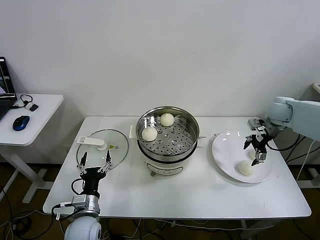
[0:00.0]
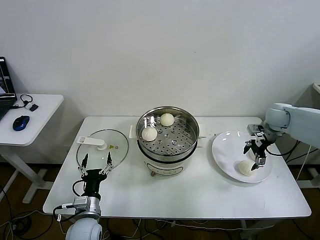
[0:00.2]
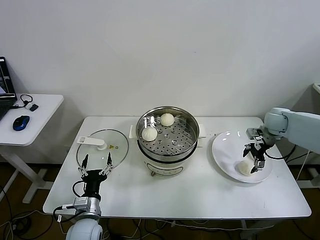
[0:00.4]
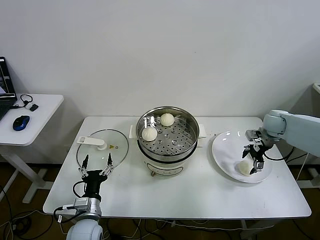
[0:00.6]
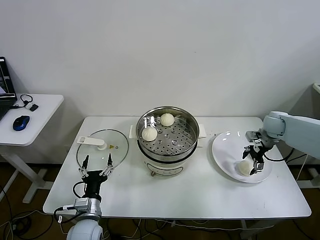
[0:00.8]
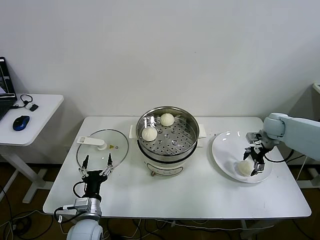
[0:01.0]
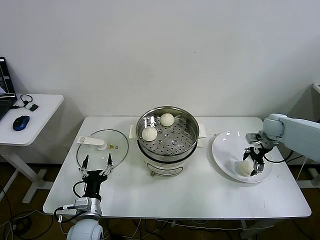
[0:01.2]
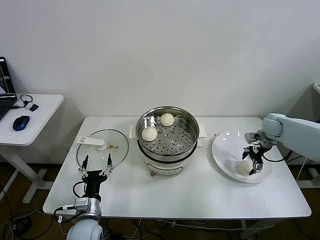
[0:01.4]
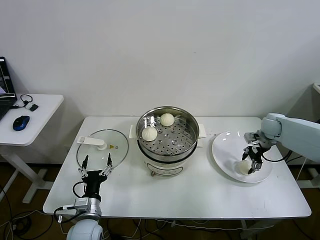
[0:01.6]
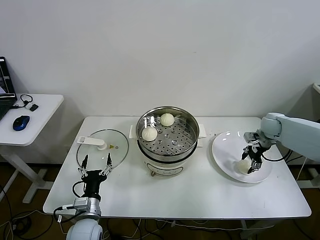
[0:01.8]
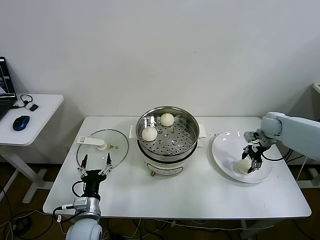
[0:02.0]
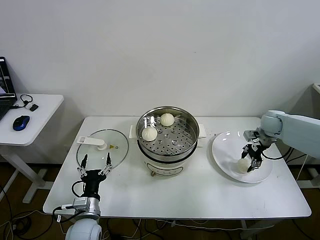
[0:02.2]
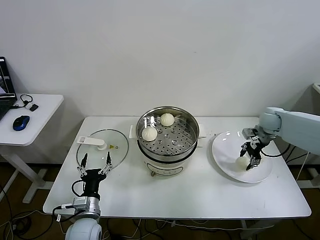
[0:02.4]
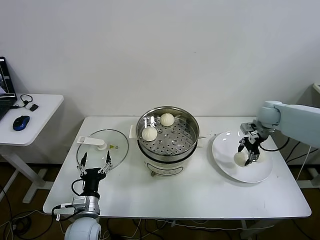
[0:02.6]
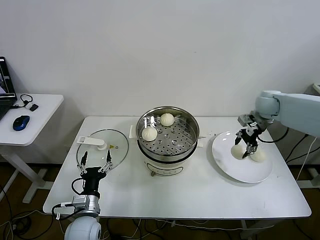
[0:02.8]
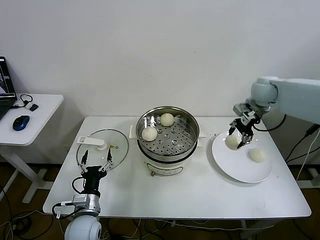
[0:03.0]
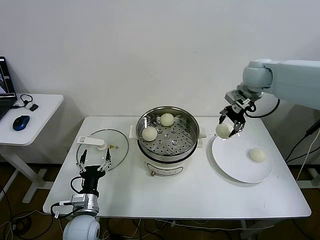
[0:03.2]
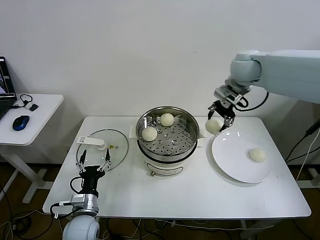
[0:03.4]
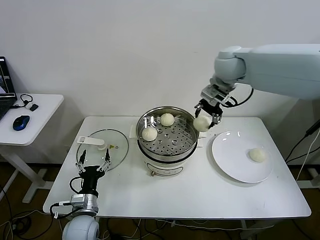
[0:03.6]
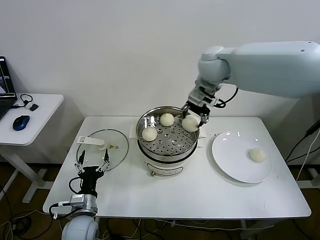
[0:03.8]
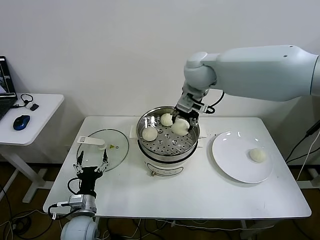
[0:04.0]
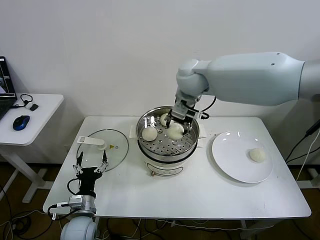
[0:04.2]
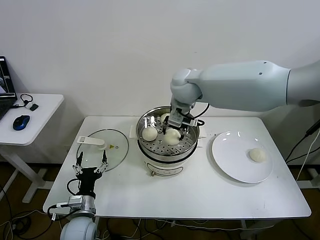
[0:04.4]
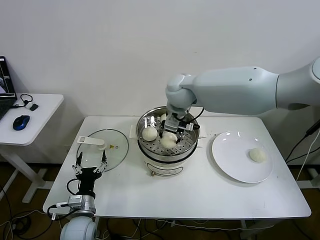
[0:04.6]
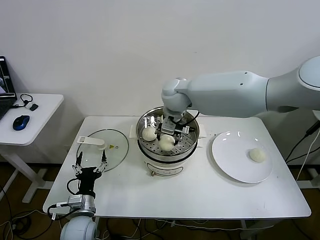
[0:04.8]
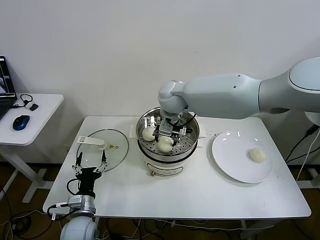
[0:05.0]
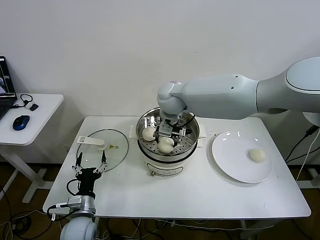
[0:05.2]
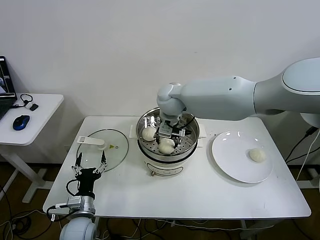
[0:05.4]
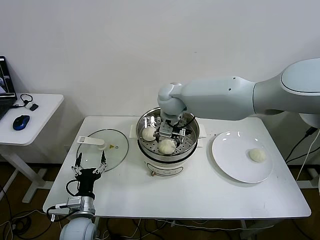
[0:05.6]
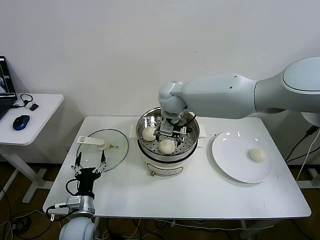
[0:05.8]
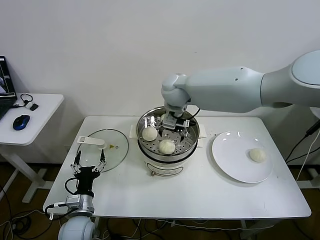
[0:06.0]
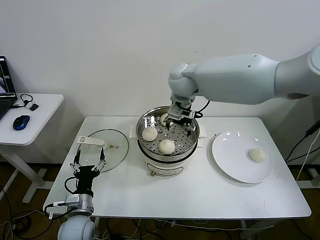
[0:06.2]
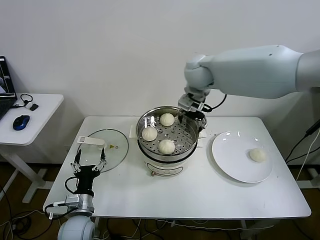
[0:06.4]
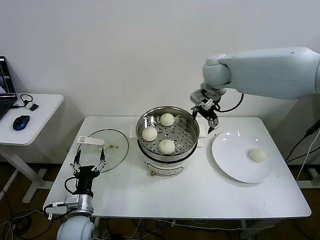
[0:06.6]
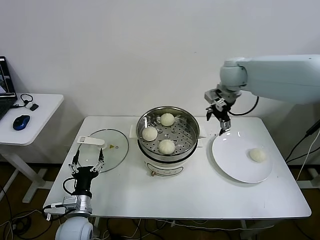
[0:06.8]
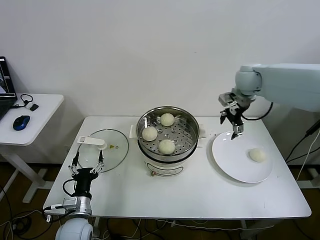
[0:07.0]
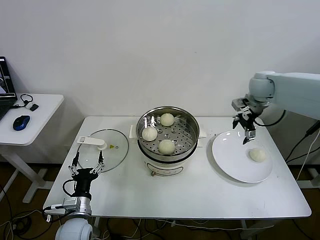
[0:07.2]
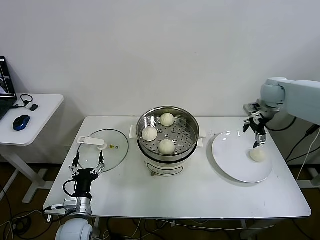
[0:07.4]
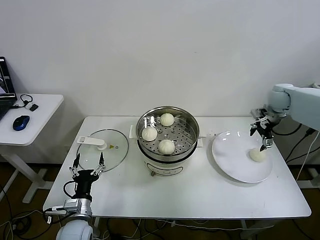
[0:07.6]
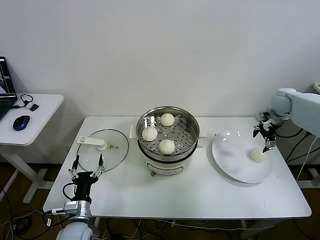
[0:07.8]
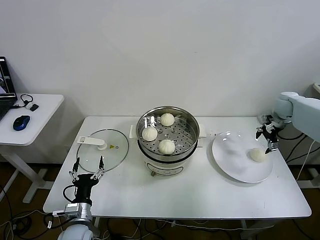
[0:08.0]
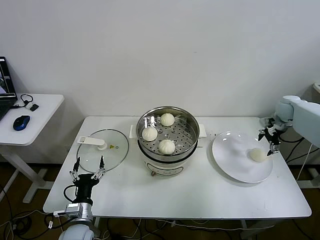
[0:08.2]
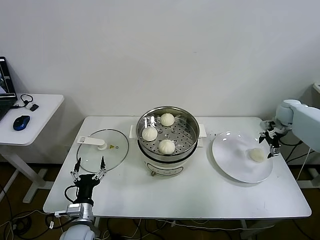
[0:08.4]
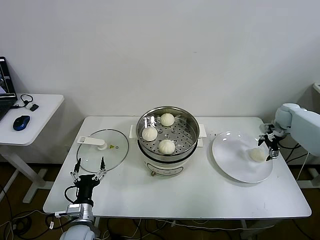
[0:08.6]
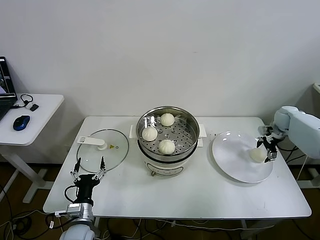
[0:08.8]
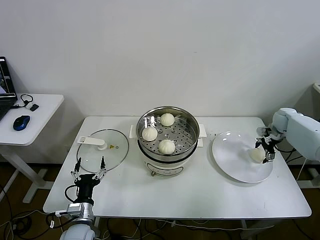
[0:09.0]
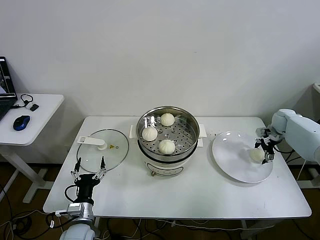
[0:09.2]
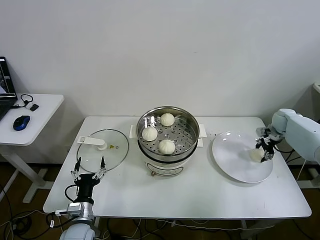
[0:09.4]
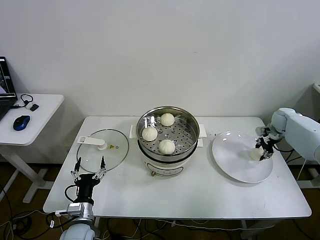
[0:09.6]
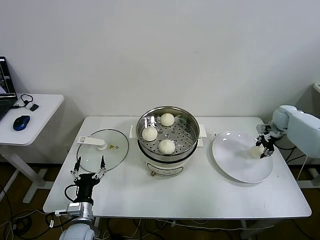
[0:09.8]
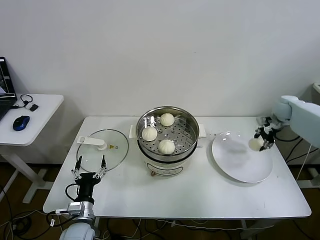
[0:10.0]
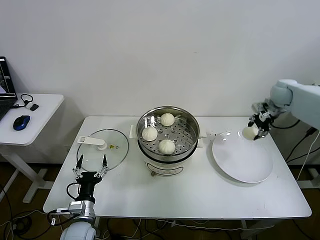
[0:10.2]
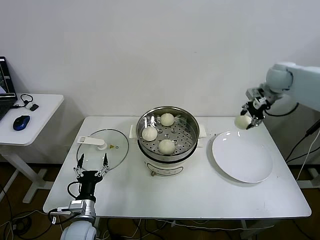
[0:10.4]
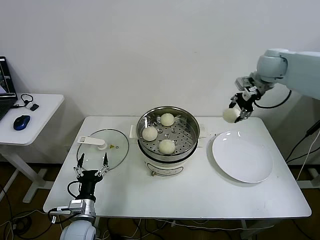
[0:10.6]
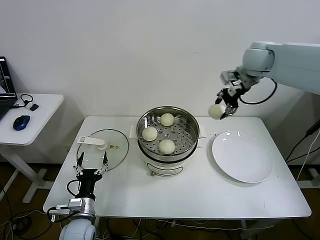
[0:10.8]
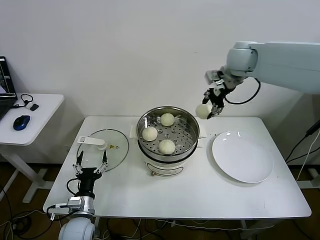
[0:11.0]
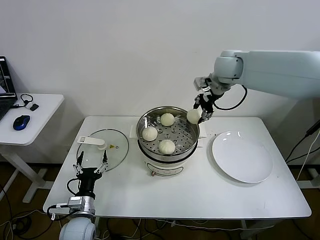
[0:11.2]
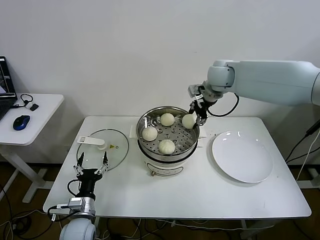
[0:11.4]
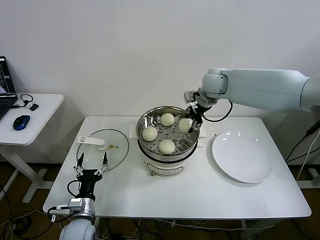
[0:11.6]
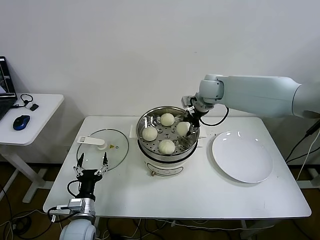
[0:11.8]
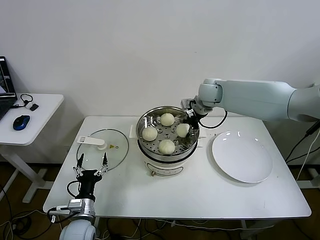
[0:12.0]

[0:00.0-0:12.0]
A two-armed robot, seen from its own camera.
Step, 0:02.2 to 0:05.6: Place the baozi on the steamer with right gripper.
Step, 0:06.0 to 0:09.4: Grasp the baozi in the plate with right gripper.
0:00.0 to 0:01.6: The right gripper is displaced downward by roughly 10 cm, and closes up.
0:01.6 to 0:03.0: The right gripper is displaced upward and to the left by about 20 cm.
0:03.0 to 0:04.4: The right gripper is displaced to the left by about 25 cm.
0:04.4 to 0:06.0: The right gripper opens up.
0:06.0 to 0:07.6: The right gripper moves to the right, roughly 40 cm.
0:07.6 to 0:09.0: The right gripper shifts approximately 15 cm downward and to the right.
0:09.0 to 0:10.4: The right gripper heads upward and to the left, covering approximately 20 cm, and closes up.
0:10.4 to 0:12.0: The right gripper heads to the left, covering roughly 20 cm.

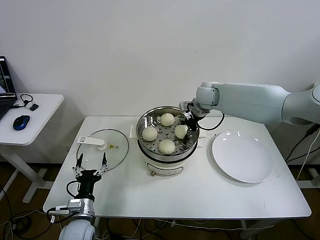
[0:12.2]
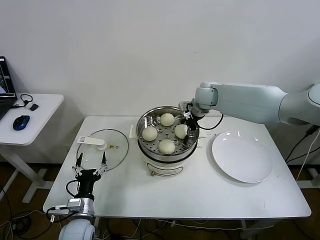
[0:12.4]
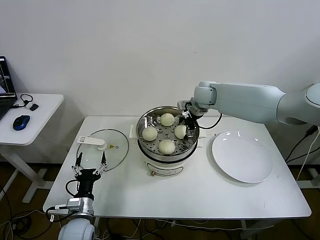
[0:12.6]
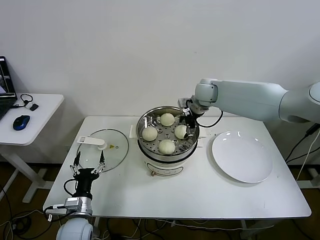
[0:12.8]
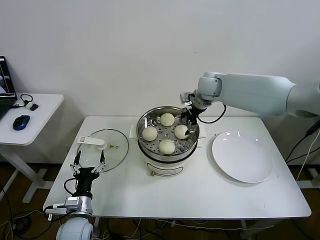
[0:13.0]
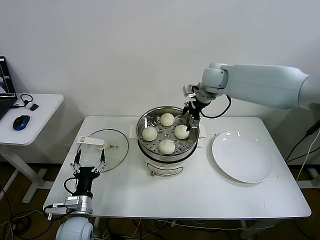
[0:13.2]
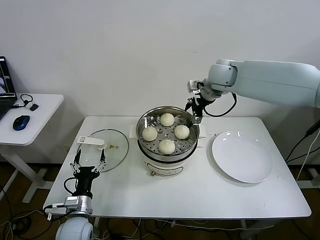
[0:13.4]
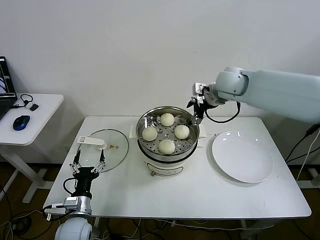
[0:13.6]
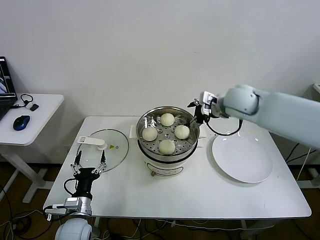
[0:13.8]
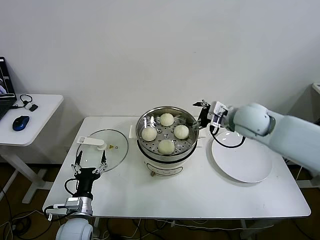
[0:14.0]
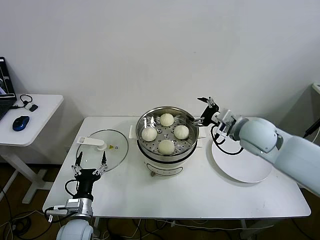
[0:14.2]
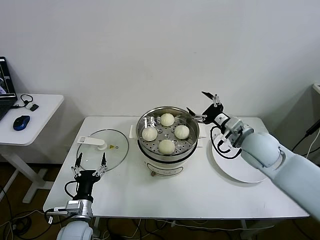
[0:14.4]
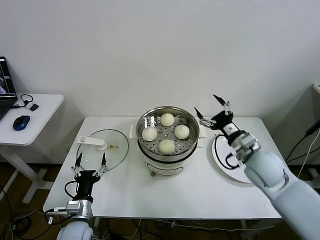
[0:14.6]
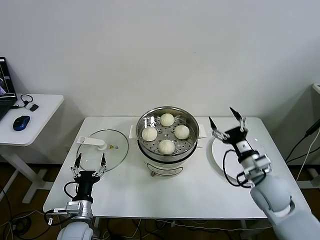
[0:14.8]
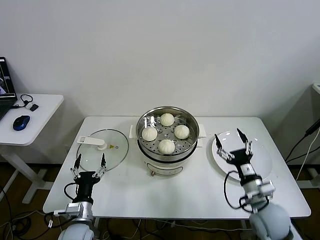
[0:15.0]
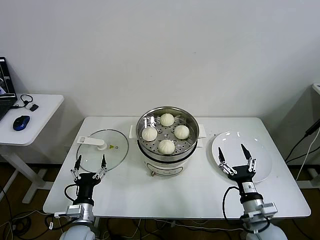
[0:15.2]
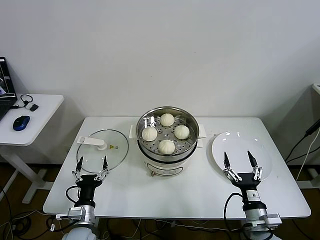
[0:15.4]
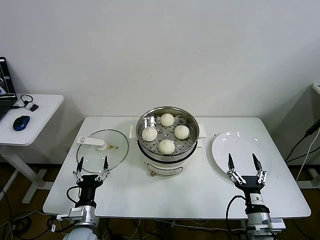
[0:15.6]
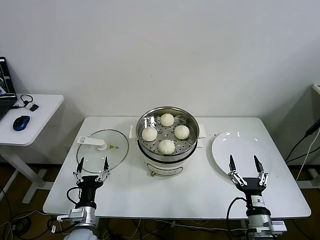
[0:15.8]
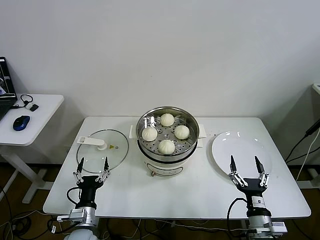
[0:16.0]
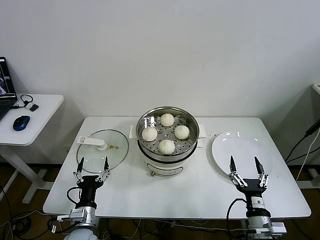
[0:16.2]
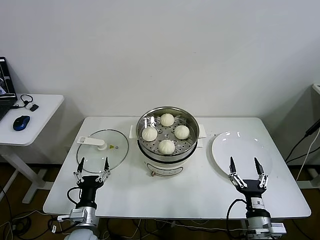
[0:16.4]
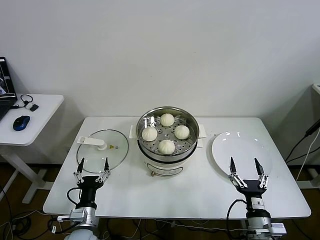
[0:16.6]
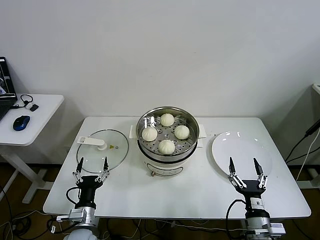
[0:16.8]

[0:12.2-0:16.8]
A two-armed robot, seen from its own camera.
0:12.2 to 0:13.8: The right gripper is displaced backward and to the right by some 10 cm, and opens up.
0:13.8 to 0:15.2: The right gripper heads backward and downward, covering roughly 40 cm.
0:15.2 to 0:16.8: The right gripper heads backward, covering approximately 5 cm.

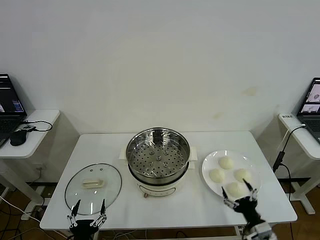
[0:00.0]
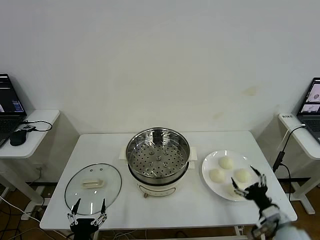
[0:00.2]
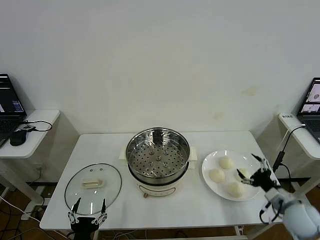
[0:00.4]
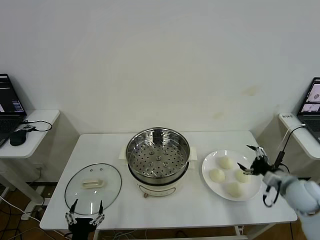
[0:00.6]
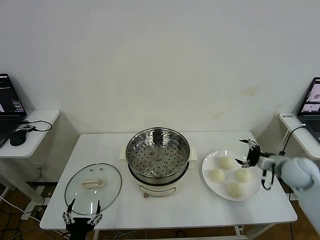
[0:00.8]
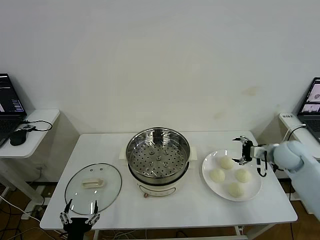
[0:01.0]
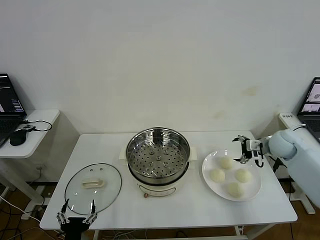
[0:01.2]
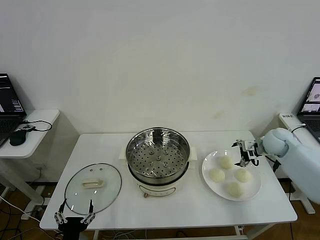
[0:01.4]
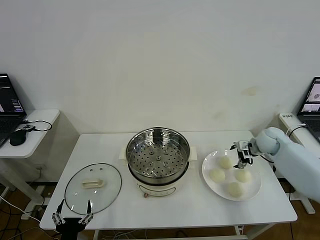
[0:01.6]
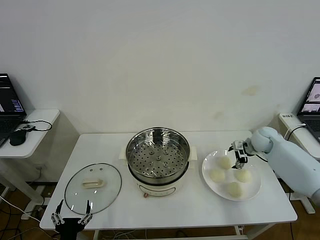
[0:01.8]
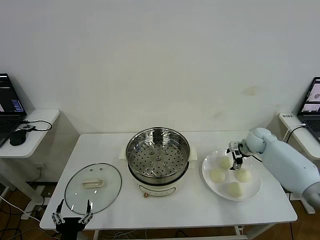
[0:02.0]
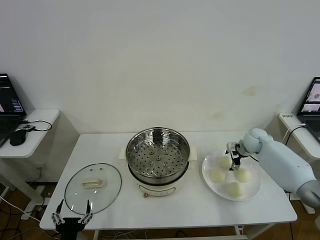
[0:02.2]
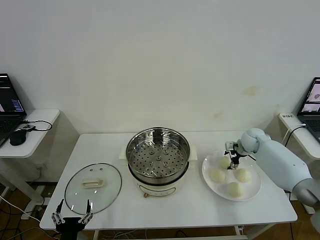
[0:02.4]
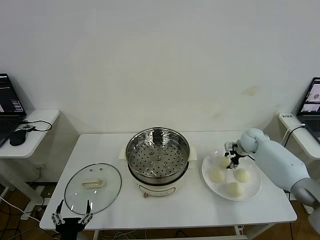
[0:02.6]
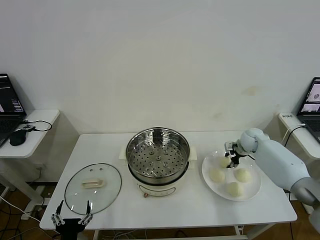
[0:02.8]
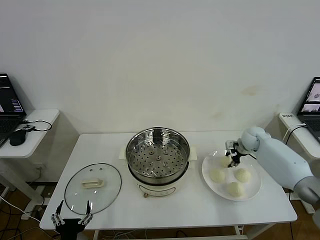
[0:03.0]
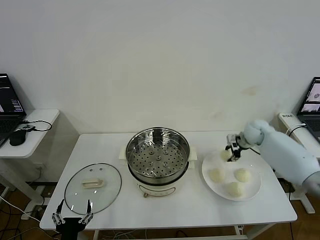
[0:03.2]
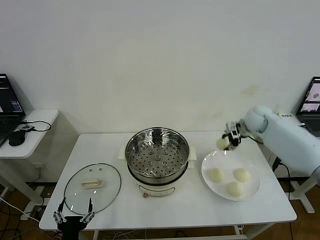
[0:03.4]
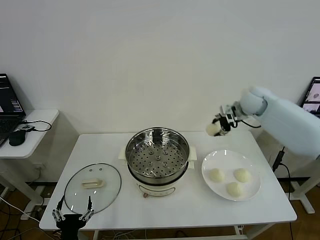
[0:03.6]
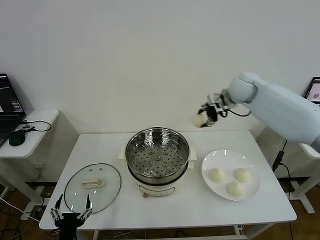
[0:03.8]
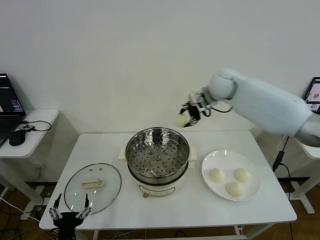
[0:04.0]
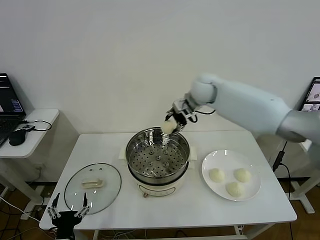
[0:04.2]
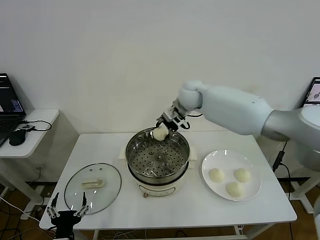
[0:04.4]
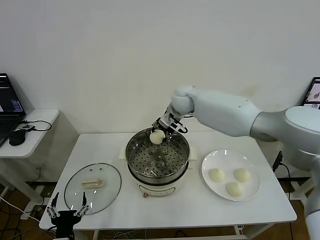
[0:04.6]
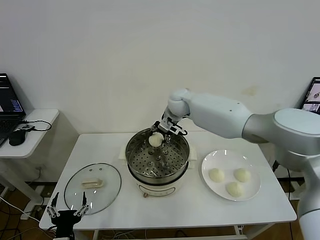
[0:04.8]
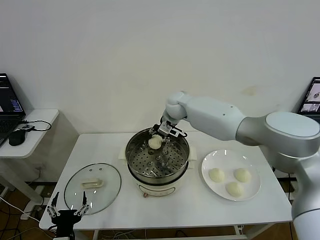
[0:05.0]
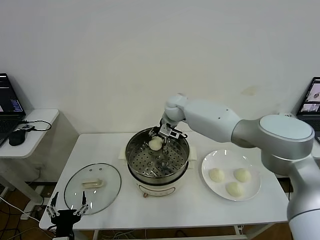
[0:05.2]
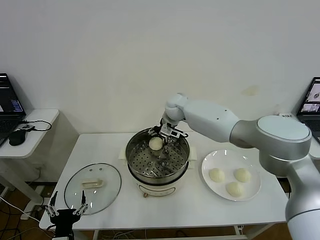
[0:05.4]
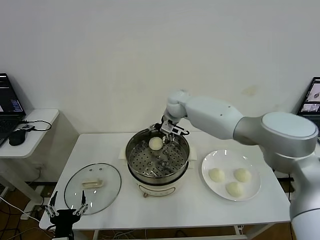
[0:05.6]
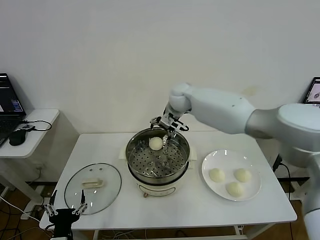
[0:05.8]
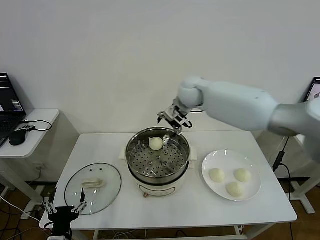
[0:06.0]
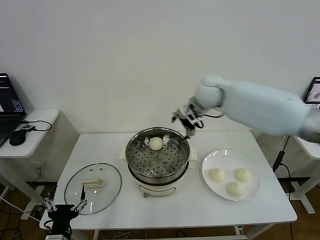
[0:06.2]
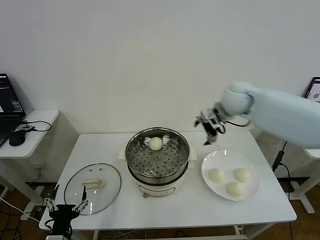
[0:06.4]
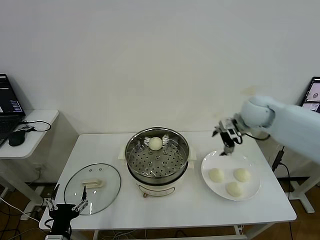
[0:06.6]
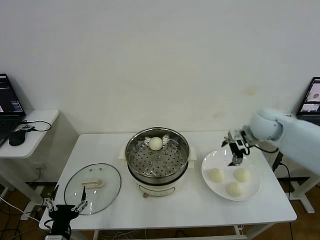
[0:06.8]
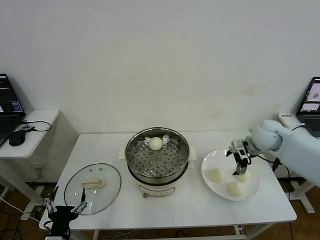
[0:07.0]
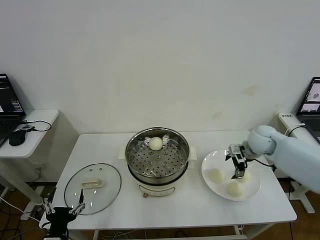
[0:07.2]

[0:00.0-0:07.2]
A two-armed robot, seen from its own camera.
Step, 0:00.0 to 0:02.8: Grasp the baozi in the plate with right gripper.
Step, 0:03.0 to 0:05.4: Place the baozi on the steamer with right gripper.
0:01.4 to 0:02.8: The right gripper travels forward by some 5 cm, and closes its fingers.
0:02.8 to 0:04.4: The right gripper shifts roughly 35 cm to the left and upward.
0:04.4 to 0:05.8: The right gripper reaches about 5 cm downward, then returns, and opens up.
0:05.8 to 0:07.2: The right gripper is displaced to the right and downward by some 30 cm.
